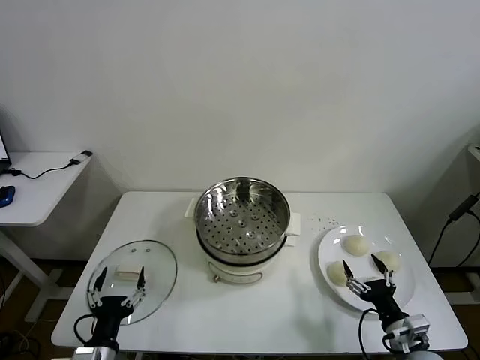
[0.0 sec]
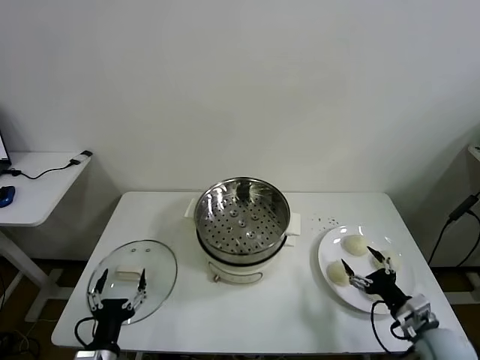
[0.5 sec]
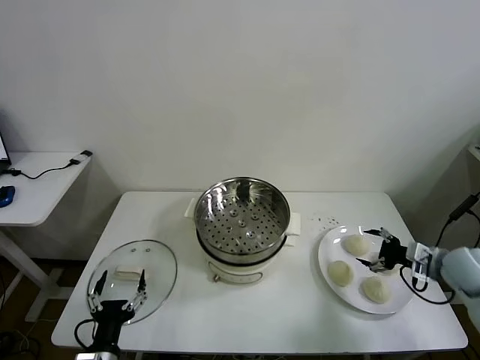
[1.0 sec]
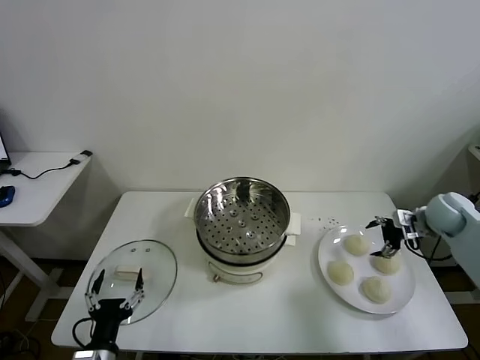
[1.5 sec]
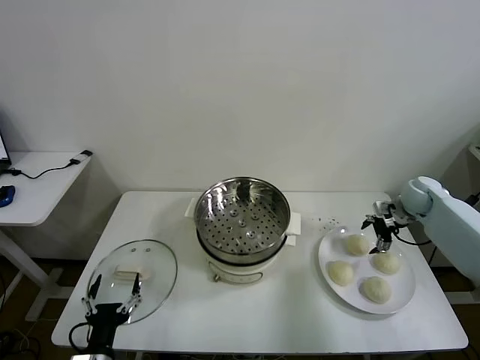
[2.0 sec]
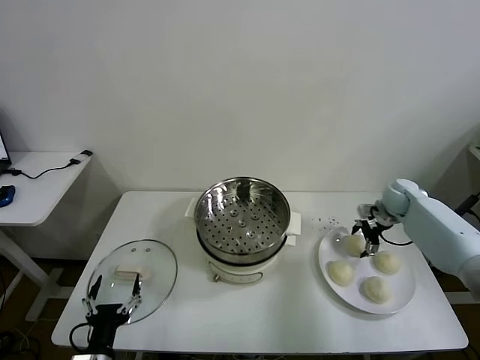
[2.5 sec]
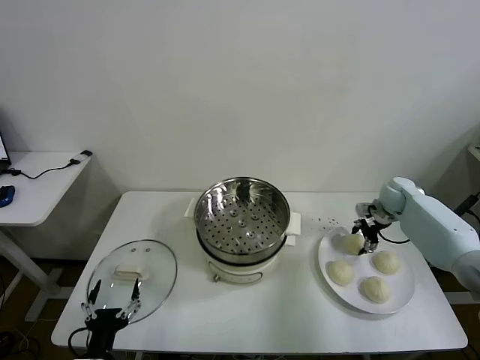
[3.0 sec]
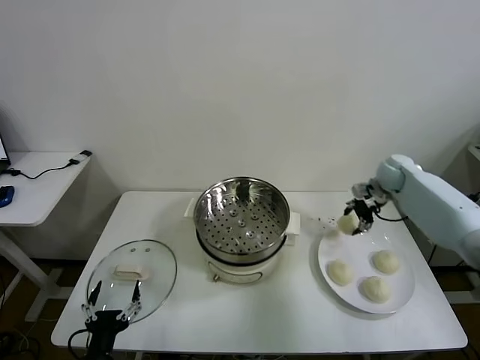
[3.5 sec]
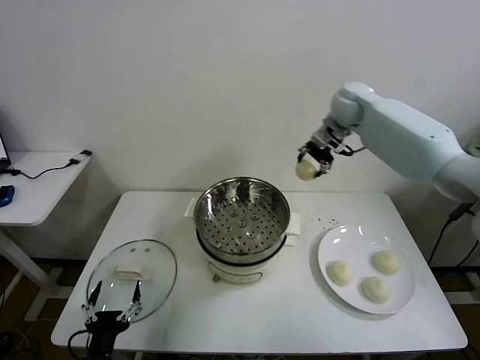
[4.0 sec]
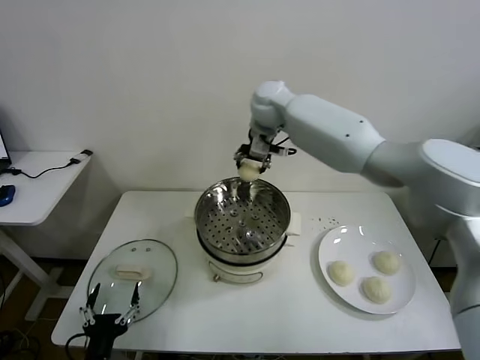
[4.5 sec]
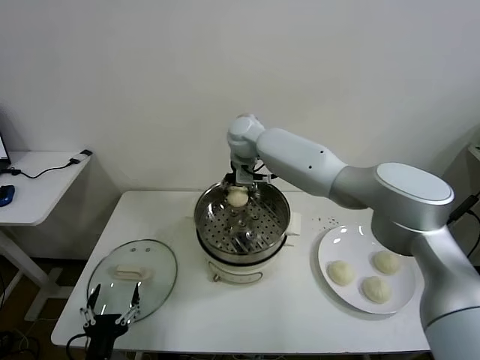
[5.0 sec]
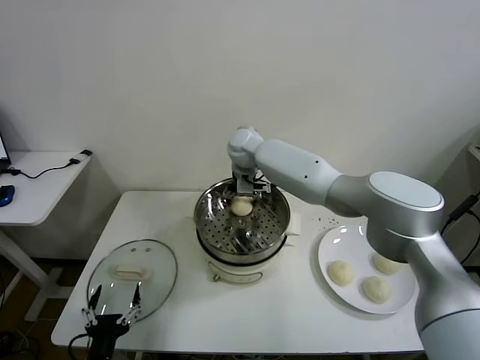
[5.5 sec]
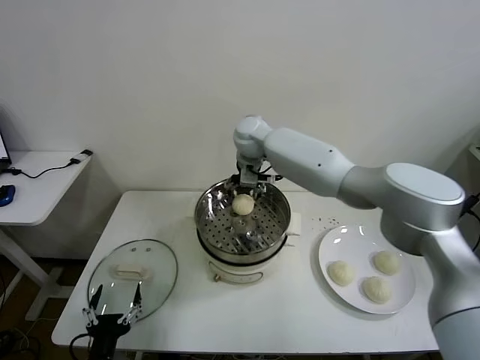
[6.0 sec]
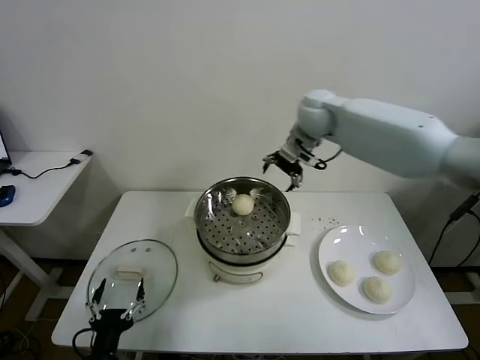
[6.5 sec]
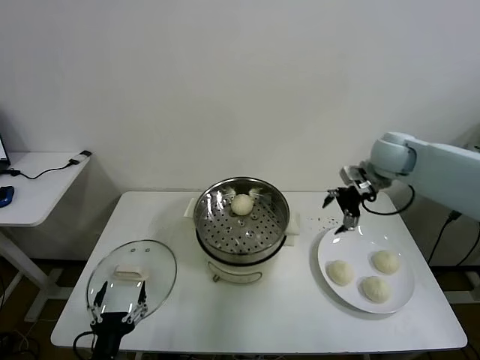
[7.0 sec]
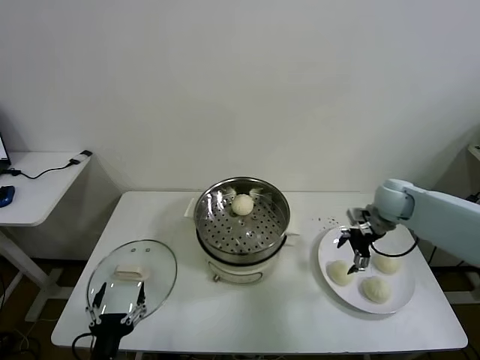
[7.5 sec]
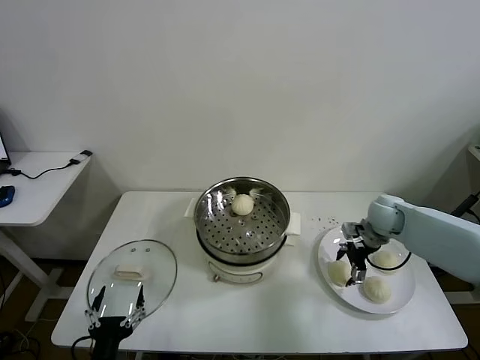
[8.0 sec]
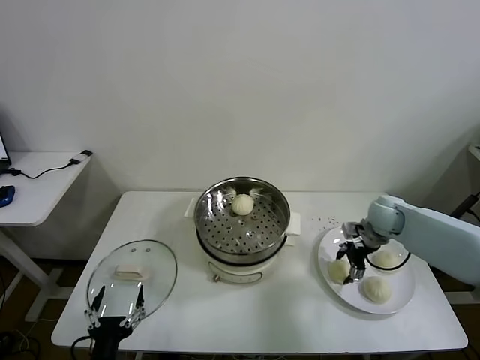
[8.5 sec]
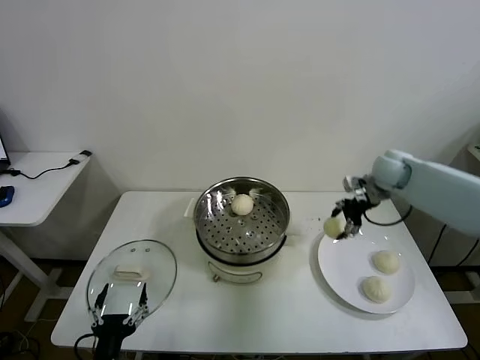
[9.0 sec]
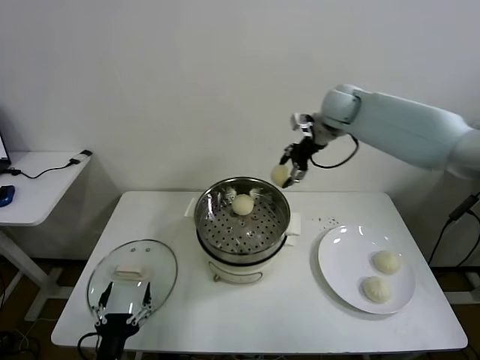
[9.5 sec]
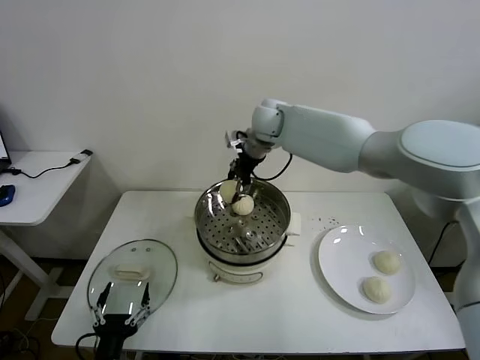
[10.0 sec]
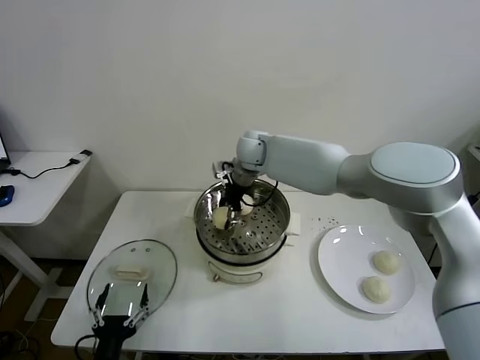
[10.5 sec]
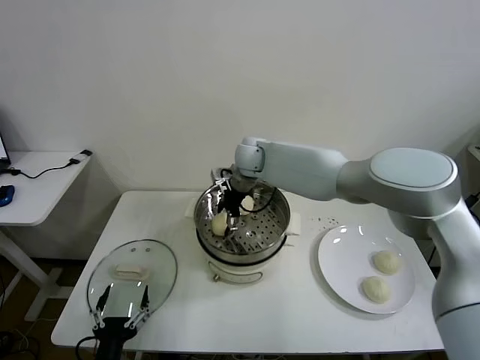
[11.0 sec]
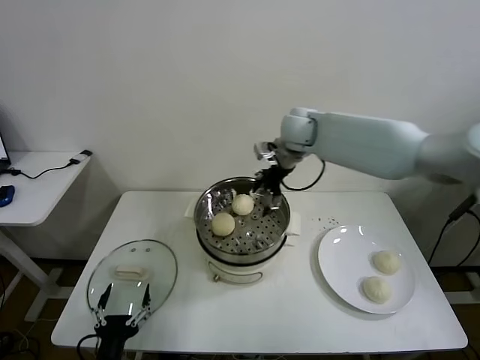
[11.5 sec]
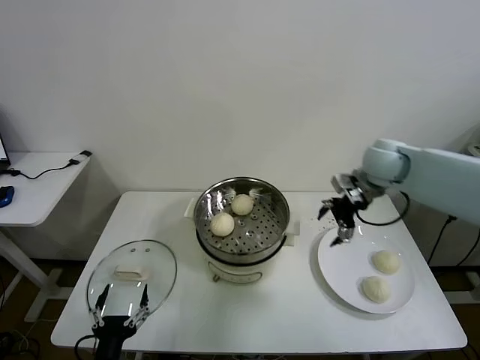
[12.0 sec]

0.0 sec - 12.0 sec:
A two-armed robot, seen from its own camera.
Task of the whole recording: take steamed baozi put them in steamer then cover it.
Step, 0.0 sec - 3.0 sec: Grasp the baozi in the plate with right gripper.
Step, 3.5 sec - 6.0 sec: Place the baozi on the steamer with right gripper.
Step, 6.5 sec - 8.5 sec: Grasp the baozi in the plate with right gripper.
Step, 9.0 sec - 11.5 sec: Place the baozi on the steamer with right gripper.
2.0 sec - 4.0 sec: The right gripper travels to the left and upward by approximately 35 cm, and closes its fingers.
4.0 sec - 6.0 sec: The right gripper is displaced to the left and downward by some 15 cm, and opens.
6.0 sec - 8.0 sec: The right gripper moves to the right and downward, about 40 cm.
8.0 sec - 10.0 sec: The right gripper goes approximately 35 cm to the left and upward, and closes up.
10.0 sec - 12.0 sec: The right gripper goes some 30 cm to the right and backward, and opens.

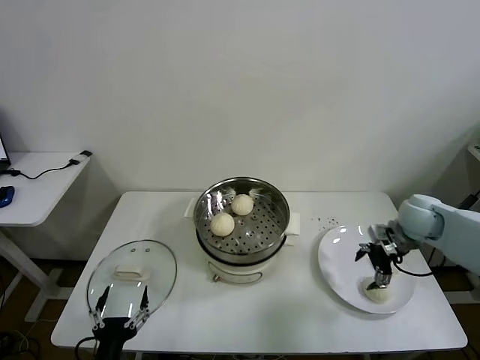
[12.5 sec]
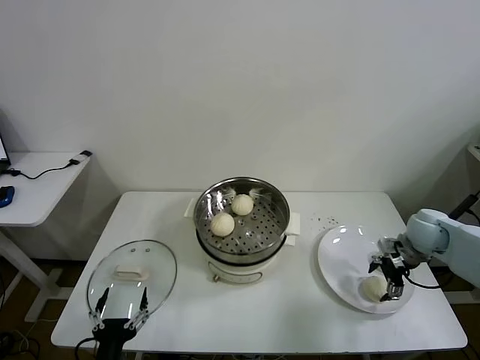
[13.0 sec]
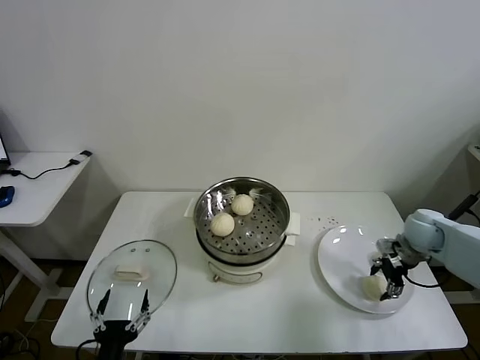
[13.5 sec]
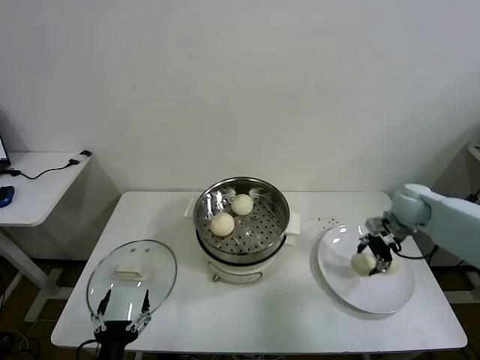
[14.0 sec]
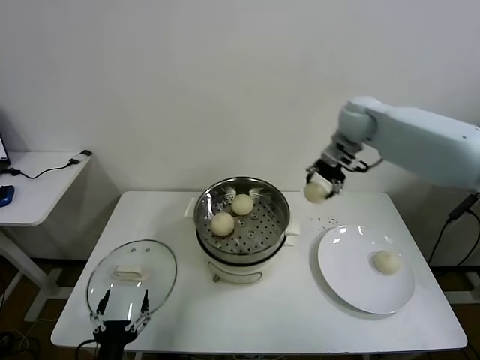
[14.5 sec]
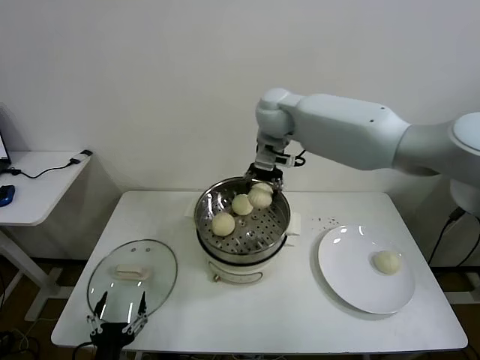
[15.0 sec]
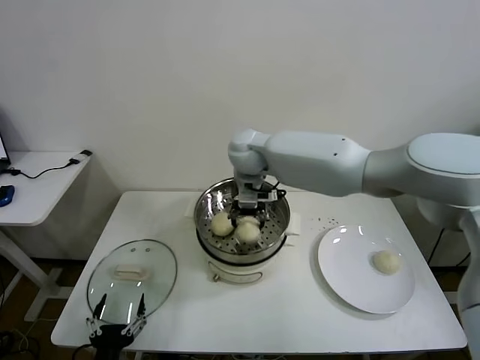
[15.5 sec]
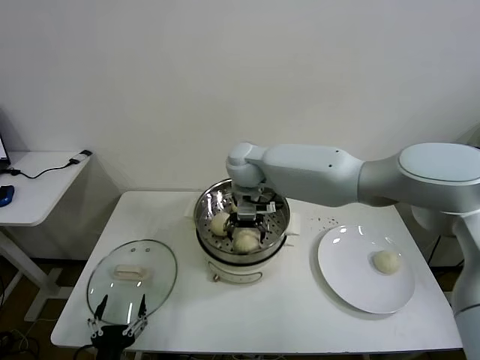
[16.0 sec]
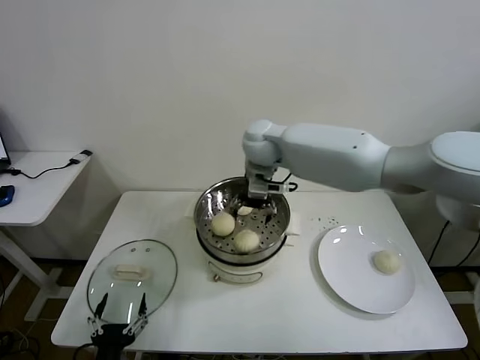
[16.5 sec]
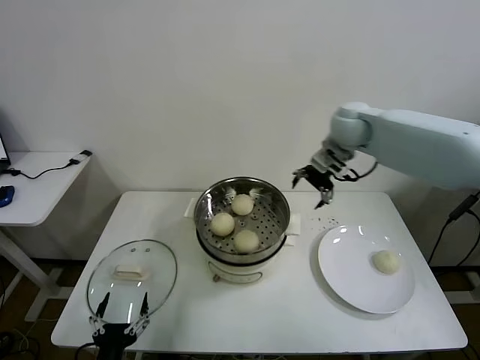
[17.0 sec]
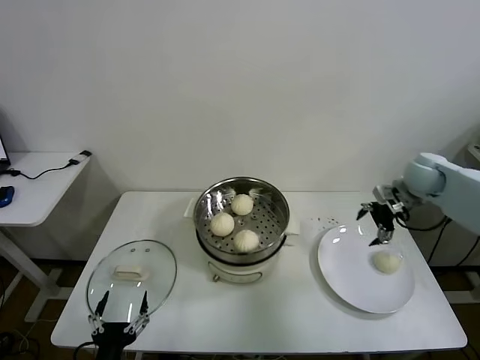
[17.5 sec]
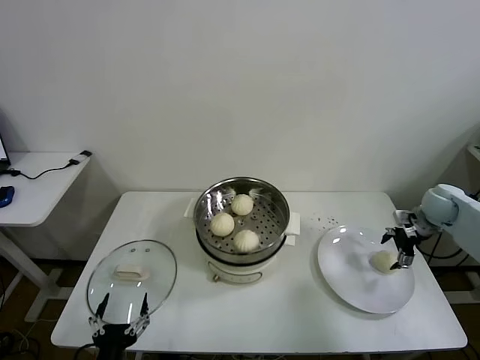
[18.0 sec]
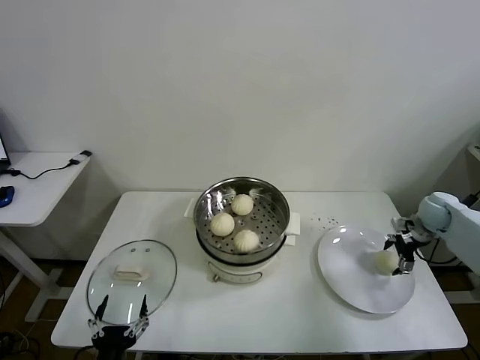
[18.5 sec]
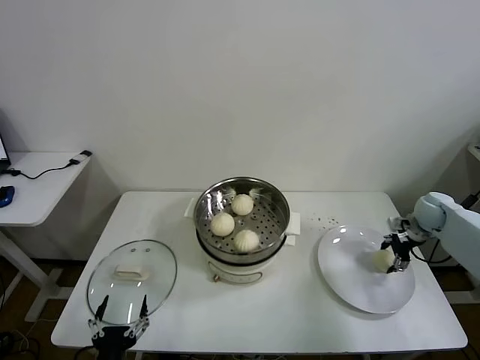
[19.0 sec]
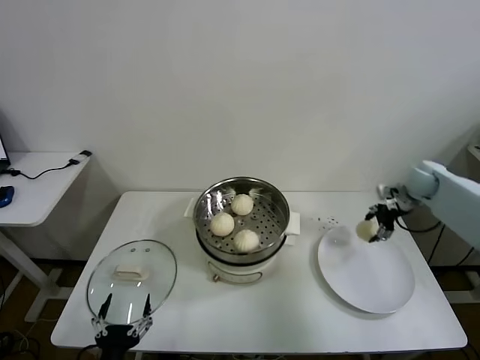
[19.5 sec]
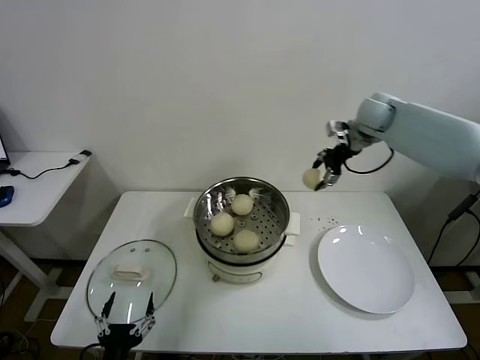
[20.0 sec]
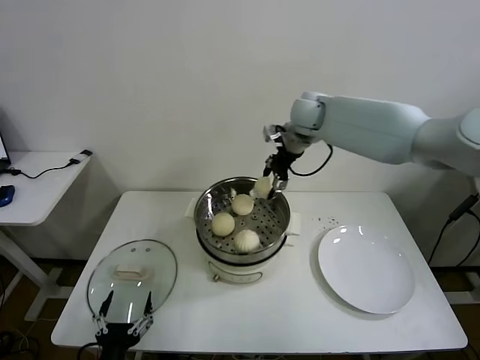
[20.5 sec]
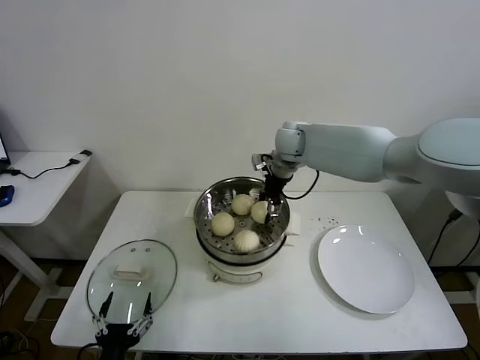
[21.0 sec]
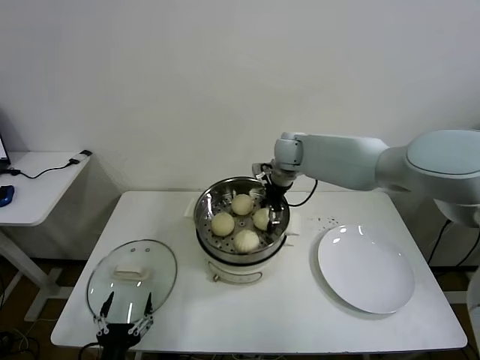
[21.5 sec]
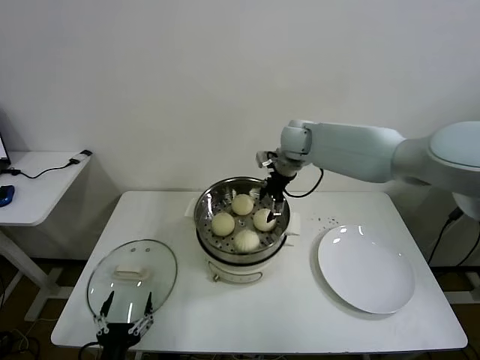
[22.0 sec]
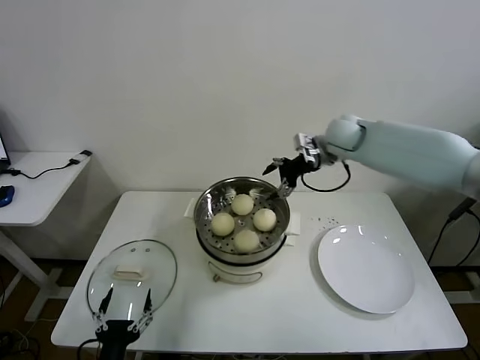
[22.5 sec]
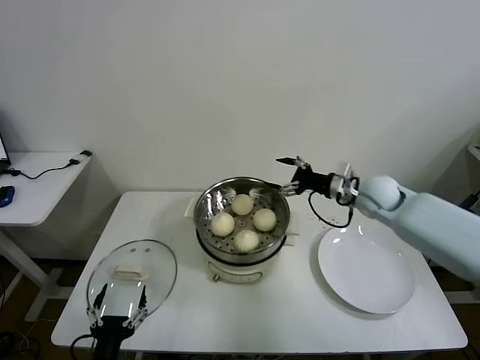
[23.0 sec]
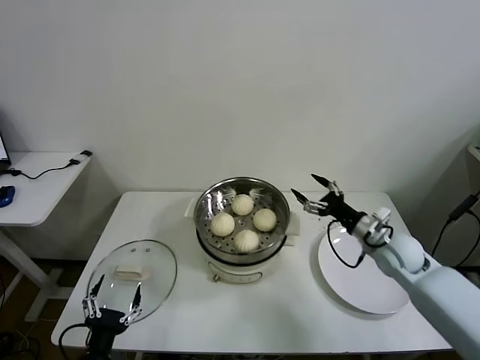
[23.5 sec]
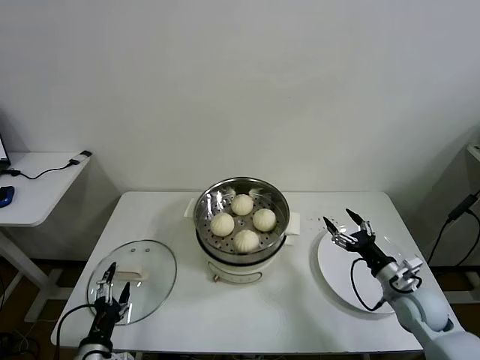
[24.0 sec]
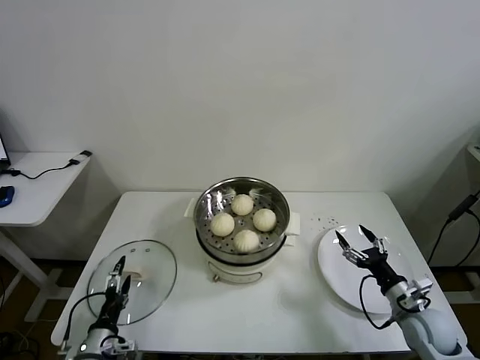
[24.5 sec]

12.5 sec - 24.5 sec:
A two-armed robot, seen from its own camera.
Task of the whole recording: take steamed baozi put them in steamer then cover it.
Step, 14.0 sec - 16.5 sec: Place the baozi on the steamer with right gripper.
Step, 17.0 sec - 19.0 sec: Grasp the baozi in the plate with right gripper.
Step, 19.5 sec - 22.0 sec: Place the baozi on the steamer with right gripper.
12.5 sec - 14.5 sec: The right gripper moves upward, to the left and forward, roughly 30 cm, and closes its fingers.
14.5 sec - 16.5 sec: The right gripper goes roughly 20 cm to the left, and opens its fingers.
16.5 sec - 18.5 sec: The right gripper heads to the right and downward, covering approximately 50 cm.
18.5 sec - 20.5 sec: The right gripper moves to the left and upward, roughly 40 cm, and closes.
20.5 sec - 22.5 sec: The right gripper heads to the right, covering approximately 10 cm, and opens its fingers.
22.5 sec - 24.5 sec: The left gripper is displaced forward, to the left and downward by roughly 15 cm, while the right gripper moves backward, downward and to the right, about 50 cm.

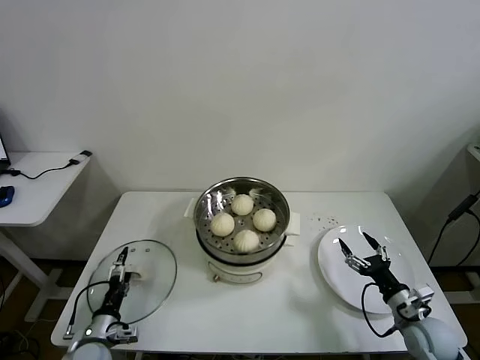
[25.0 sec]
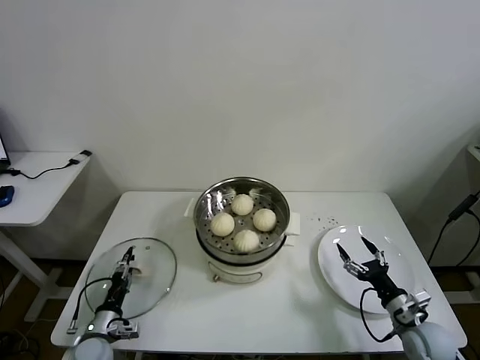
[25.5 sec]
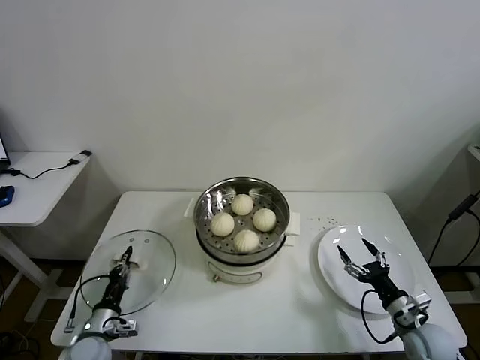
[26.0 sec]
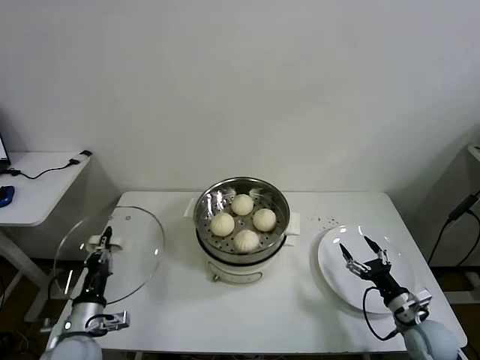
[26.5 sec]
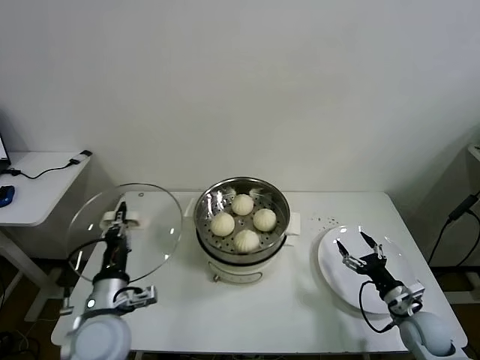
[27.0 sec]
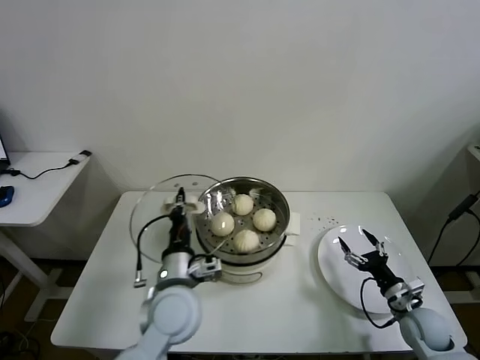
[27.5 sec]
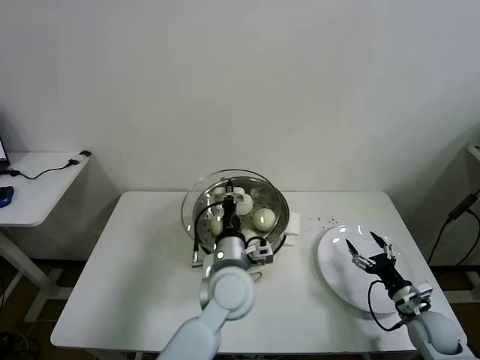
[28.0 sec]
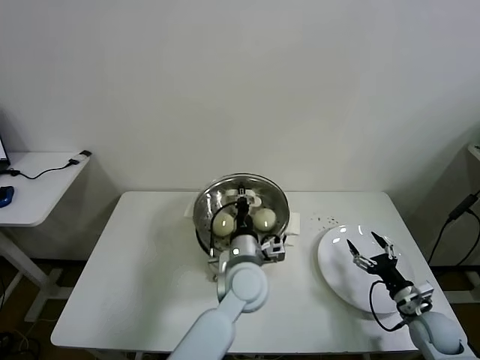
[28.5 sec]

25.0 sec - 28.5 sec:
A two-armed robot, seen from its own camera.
Task of the whole recording: take steamed baozi put them in steamer then cover it.
25.0 sec - 27.0 sec: The left gripper shifts about 20 cm upward and to the right, and closes up.
27.0 sec - 28.5 sec: The left gripper moves to the right and forward, roughly 30 cm.
